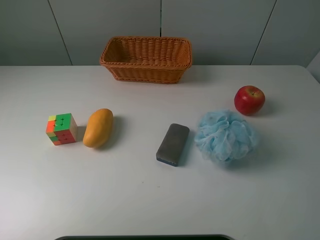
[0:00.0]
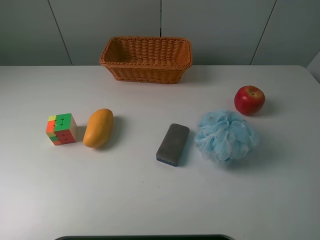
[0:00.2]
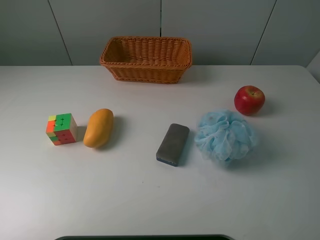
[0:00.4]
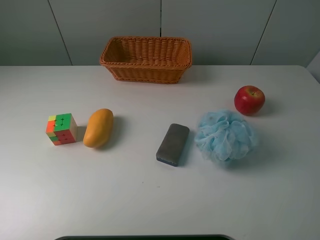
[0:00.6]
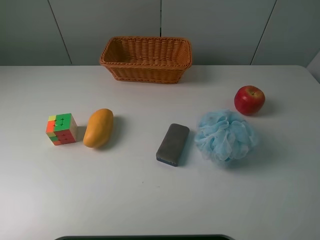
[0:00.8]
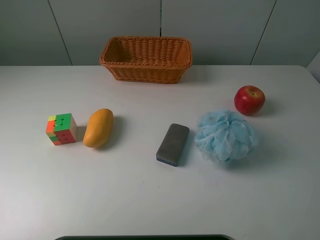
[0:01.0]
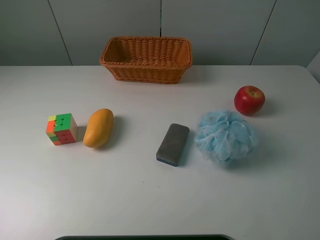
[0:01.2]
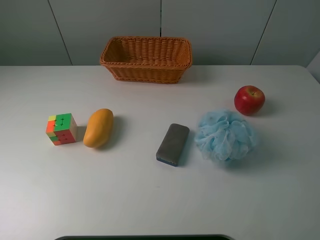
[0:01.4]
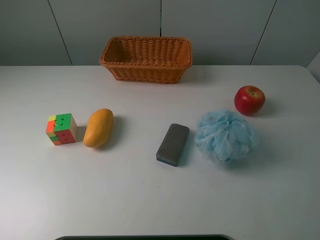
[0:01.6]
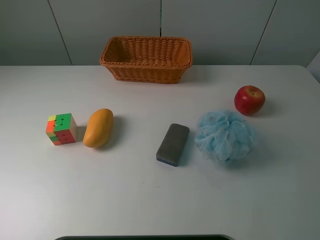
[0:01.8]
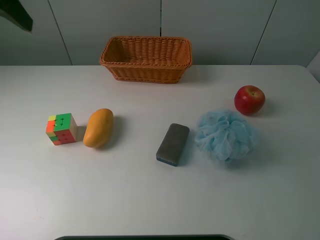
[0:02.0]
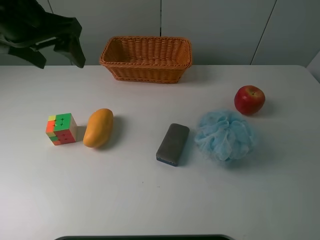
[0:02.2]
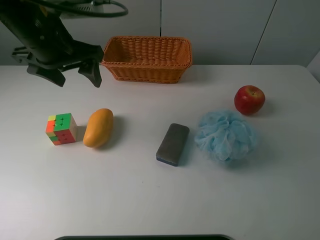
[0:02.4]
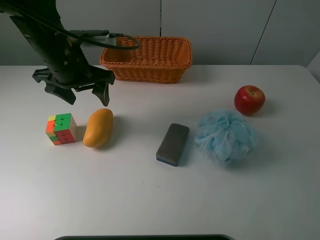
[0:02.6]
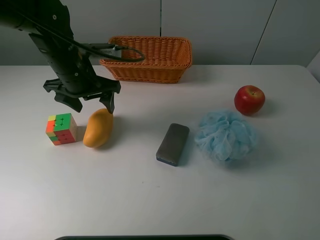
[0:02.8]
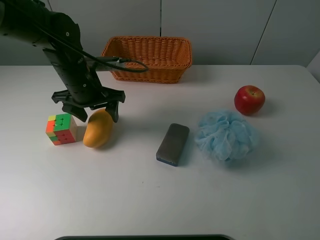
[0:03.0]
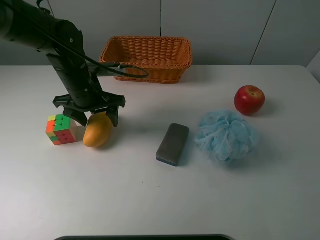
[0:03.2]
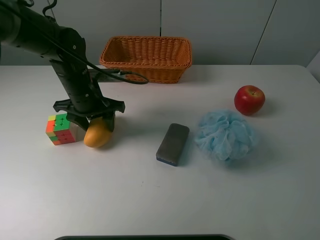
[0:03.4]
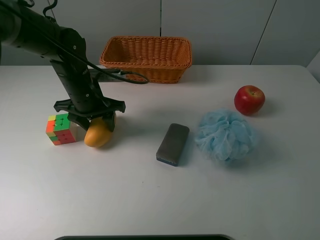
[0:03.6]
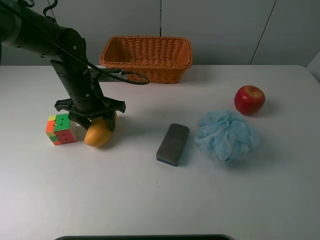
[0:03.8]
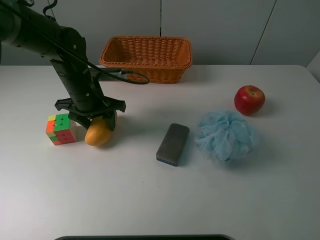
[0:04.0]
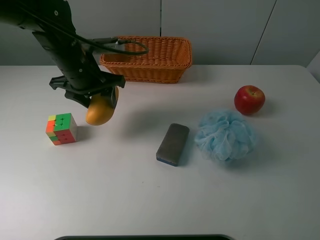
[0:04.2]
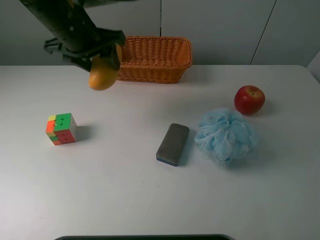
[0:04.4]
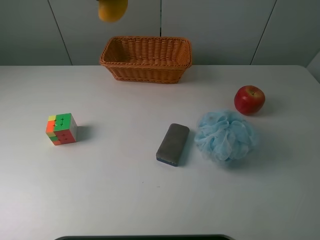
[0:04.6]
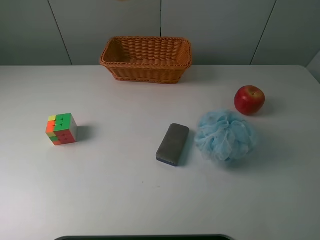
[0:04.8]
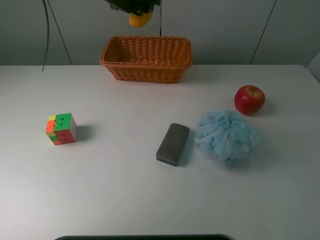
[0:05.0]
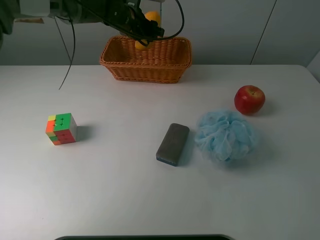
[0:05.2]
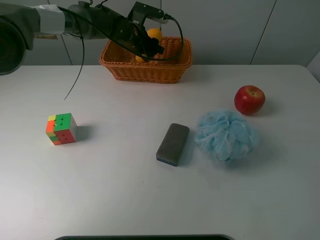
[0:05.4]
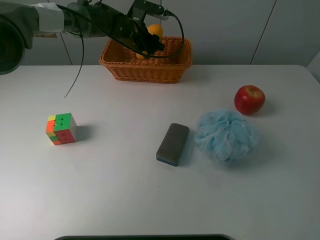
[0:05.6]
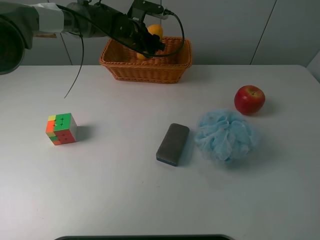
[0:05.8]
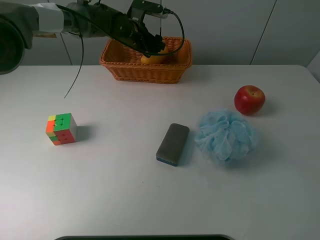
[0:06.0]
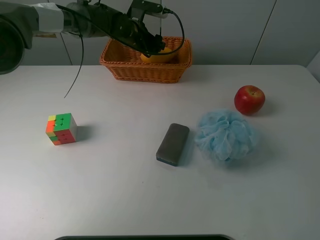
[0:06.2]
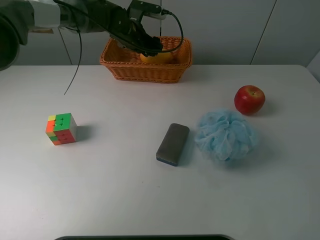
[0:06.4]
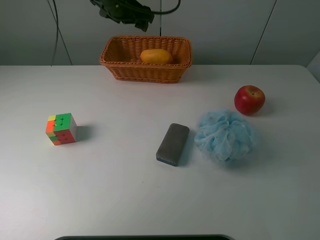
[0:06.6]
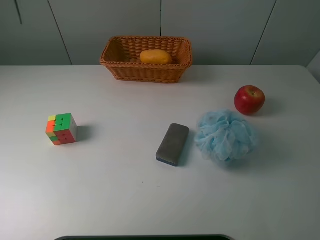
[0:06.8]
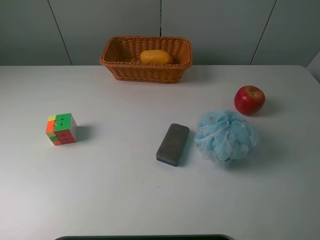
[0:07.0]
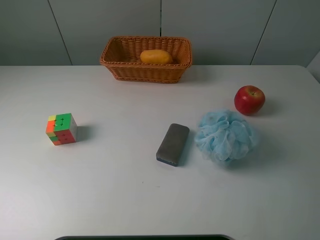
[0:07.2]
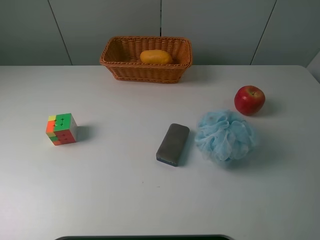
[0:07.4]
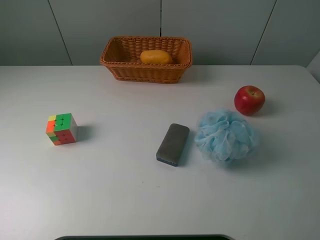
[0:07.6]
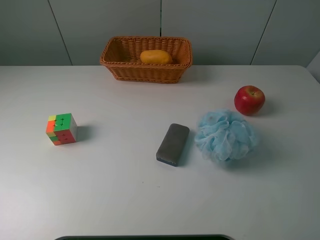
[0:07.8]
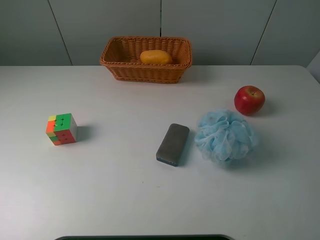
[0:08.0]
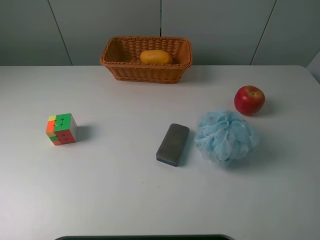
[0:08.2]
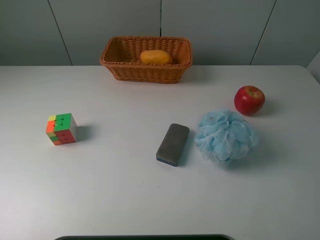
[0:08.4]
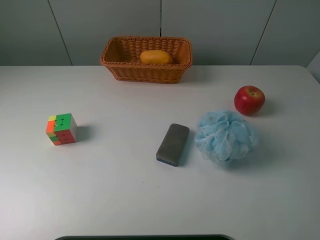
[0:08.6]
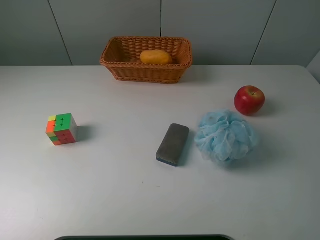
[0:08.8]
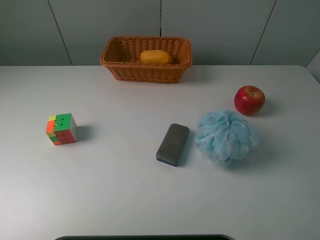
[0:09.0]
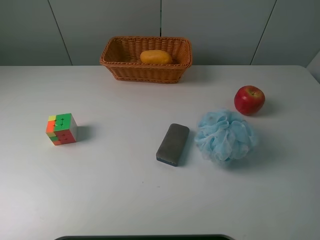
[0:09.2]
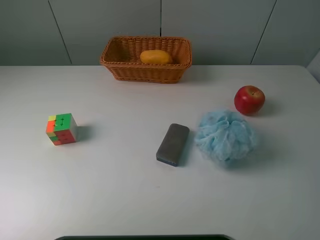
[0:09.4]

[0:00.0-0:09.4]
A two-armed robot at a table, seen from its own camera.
Task of the whole recording: use a picker to grab the item closest to the cube and place it in the basket.
Step, 0:00.0 to 0:03.6: Grasp the mango with the left gripper.
Step, 0:03.8 to 0:06.4: Place the mango into the basket with the left gripper.
0:01.6 to 0:03.2: The left gripper travels downward, forward and to the right by approximately 40 cm.
0:03.2 to 0:04.8: The left gripper travels upward and forward by roughly 20 cm, and closes.
0:04.8 to 0:06.2: The left gripper shifts about 20 cm downward and forward, and opens.
0:06.2 to 0:07.8: The left gripper heads backward, to the left and upward, covering roughly 70 cm.
